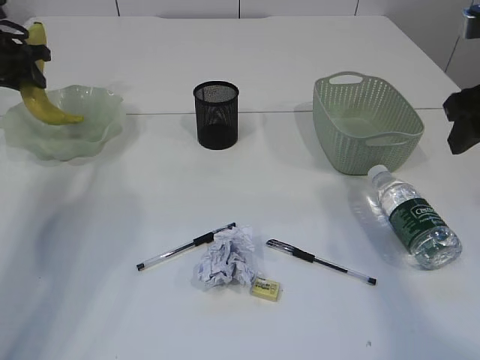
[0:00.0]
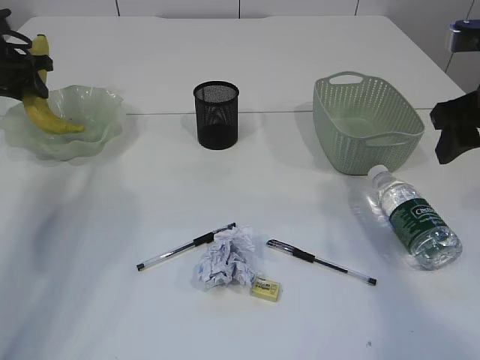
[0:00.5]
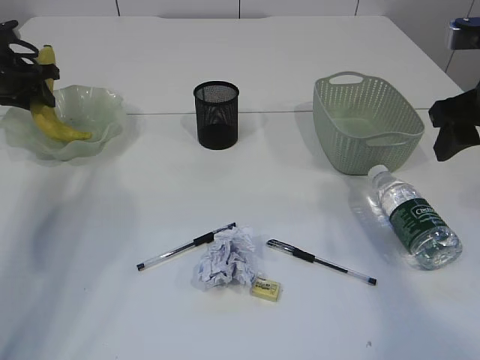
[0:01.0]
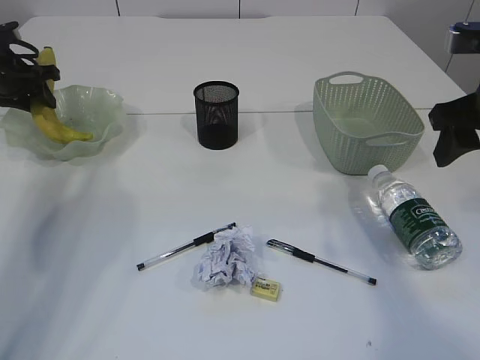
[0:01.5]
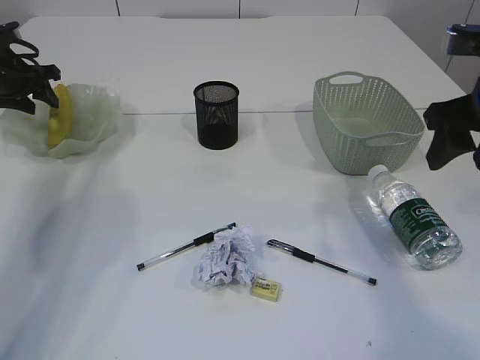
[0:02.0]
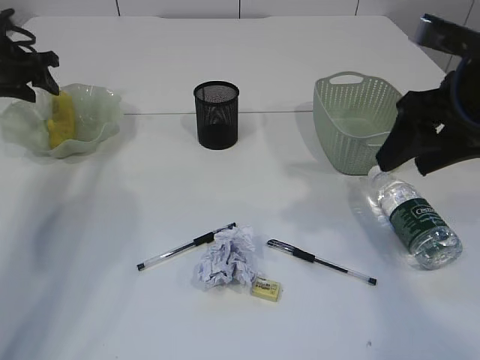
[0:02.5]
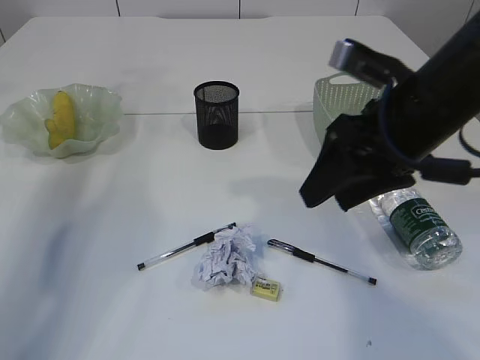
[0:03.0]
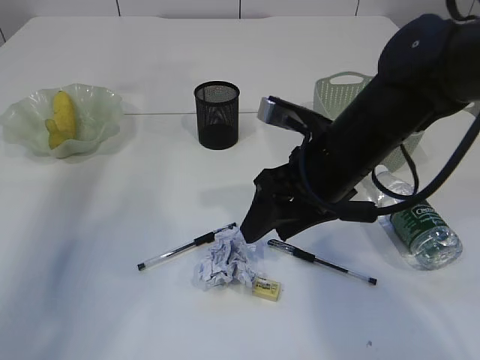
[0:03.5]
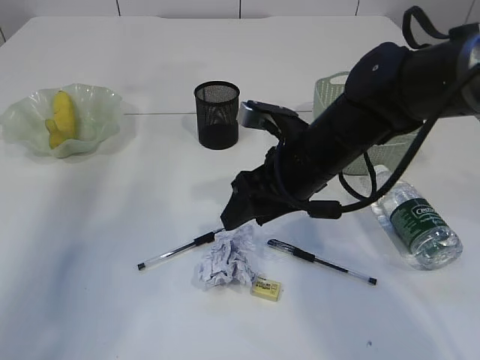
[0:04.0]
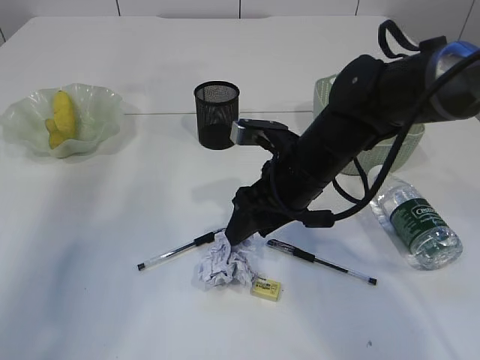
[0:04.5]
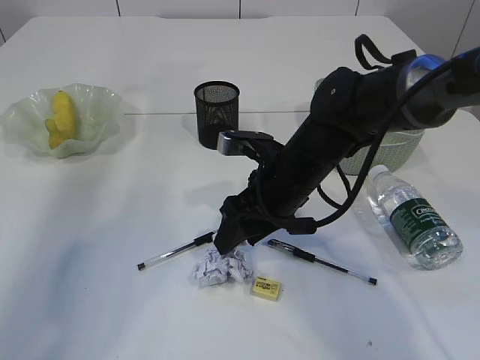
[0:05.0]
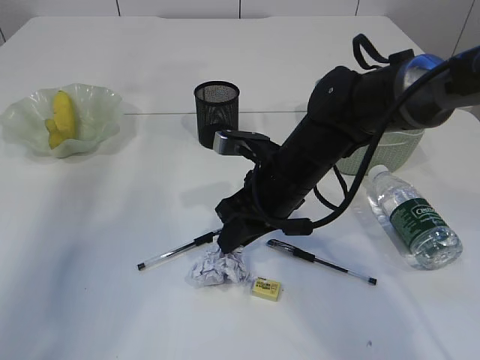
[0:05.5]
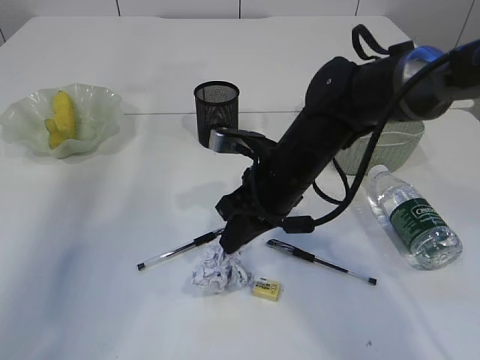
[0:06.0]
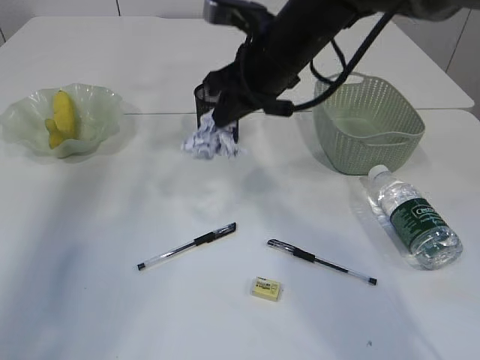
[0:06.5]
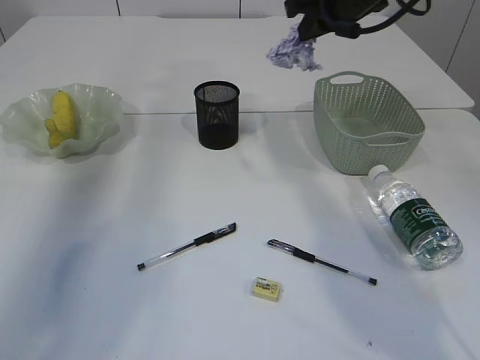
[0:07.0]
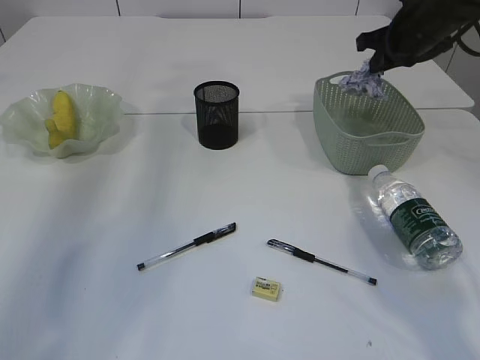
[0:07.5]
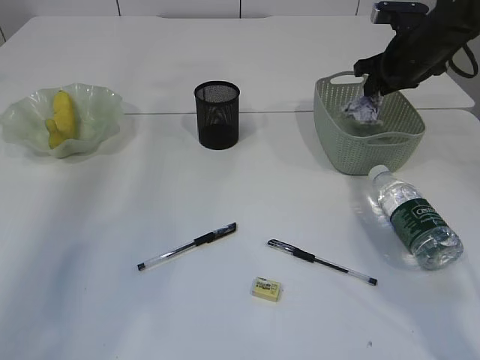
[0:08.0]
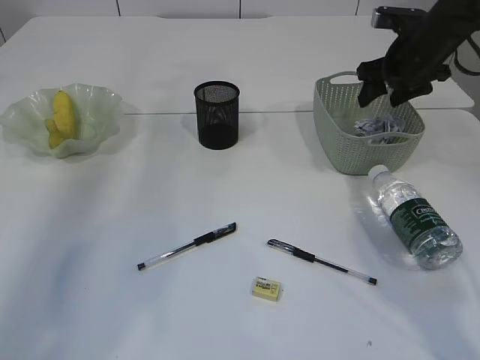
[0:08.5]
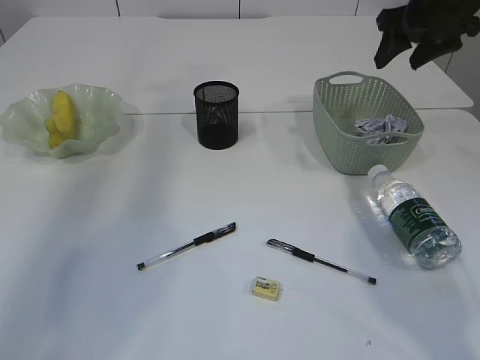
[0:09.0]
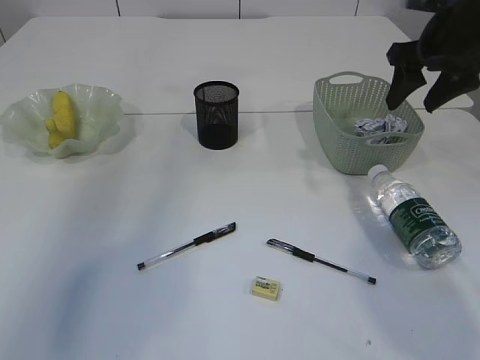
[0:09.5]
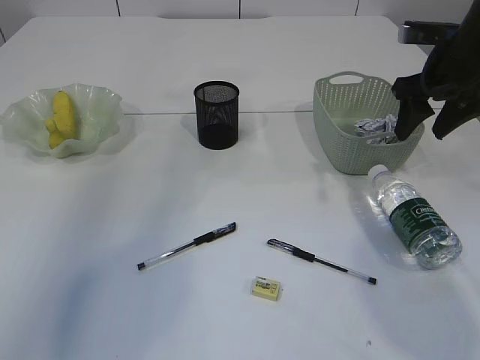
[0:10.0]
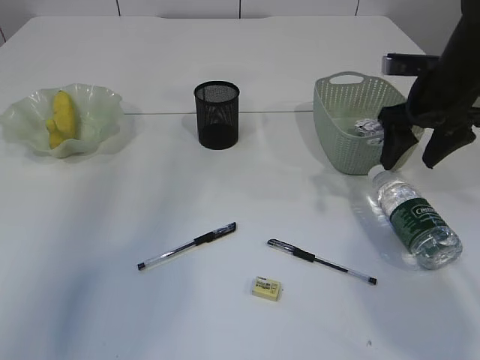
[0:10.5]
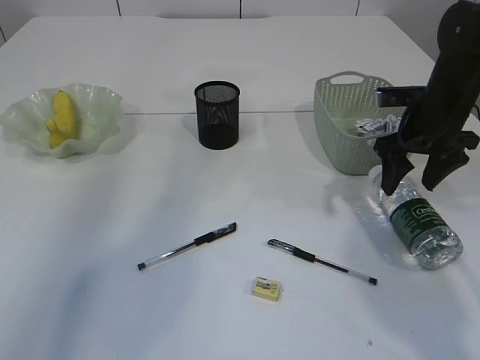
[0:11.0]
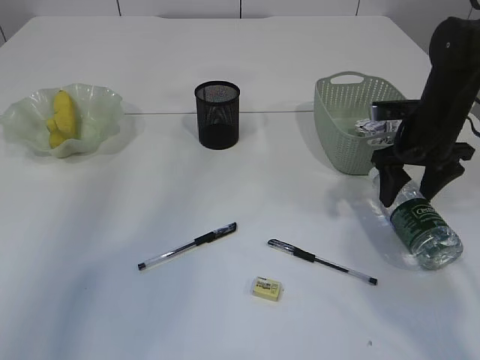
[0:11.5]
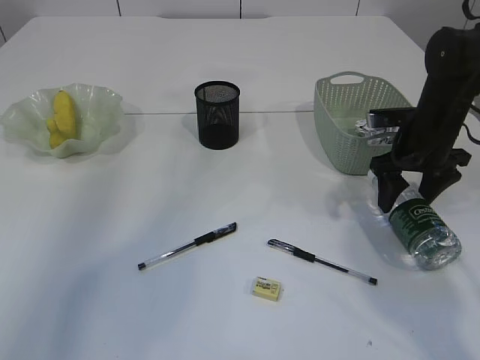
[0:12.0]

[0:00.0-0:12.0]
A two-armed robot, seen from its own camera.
Step, 0.0 to 2.5 s: Place the banana in the plate.
Step, 3.0 to 6.0 s: Pick up the waste paper.
Step, 6.5 to 8.5 s: Place the waste paper in the basket.
0.0 to 2.0 s: There are only small adjustments of the grippers.
2.0 to 4.0 s: The left gripper travels upward by roughly 30 cm, while the right gripper goes some 20 cm to the left and downward.
4.0 to 6.0 s: The right gripper closes its fingers.
6.0 to 8.0 s: The right gripper is displaced to the right and forward by about 30 cm, and opens.
8.0 to 10.0 s: The grippers both shift backward by approximately 10 cm. The right gripper opens its fingers.
10.0 to 12.0 s: The right gripper is displaced downward by roughly 10 cm.

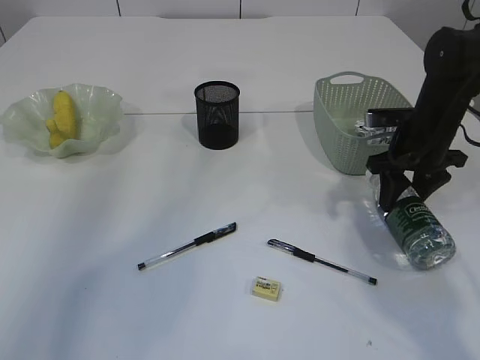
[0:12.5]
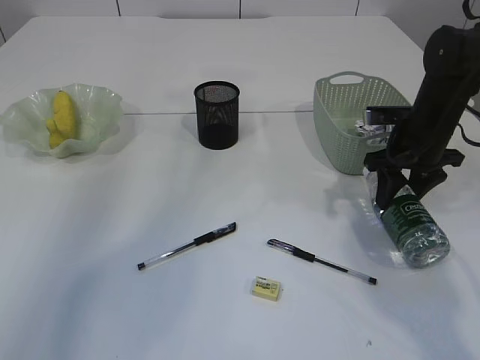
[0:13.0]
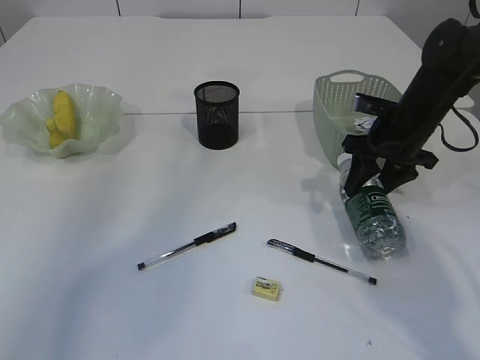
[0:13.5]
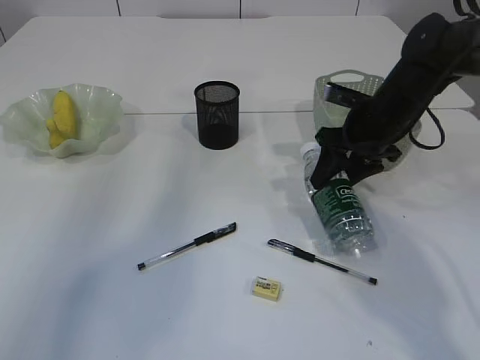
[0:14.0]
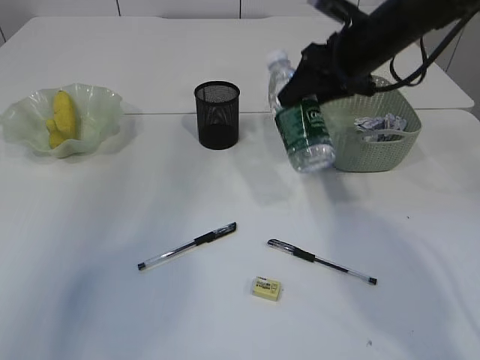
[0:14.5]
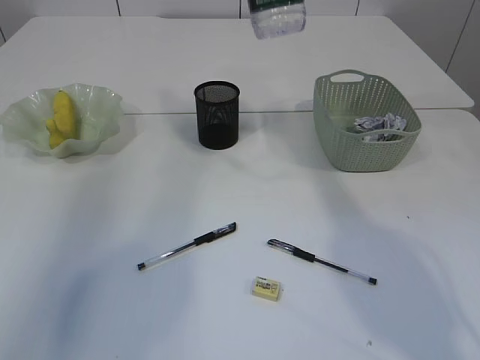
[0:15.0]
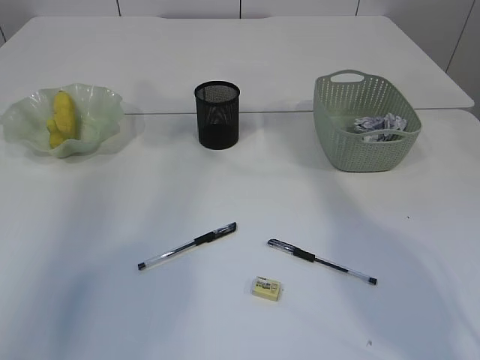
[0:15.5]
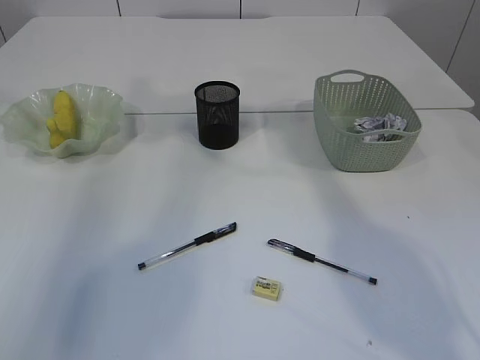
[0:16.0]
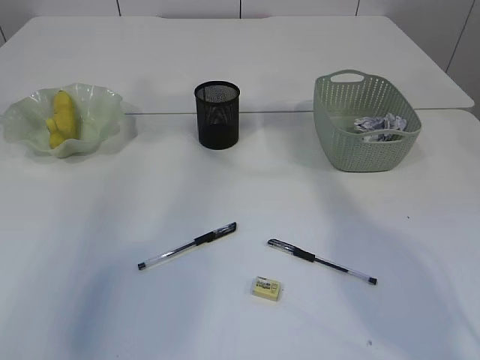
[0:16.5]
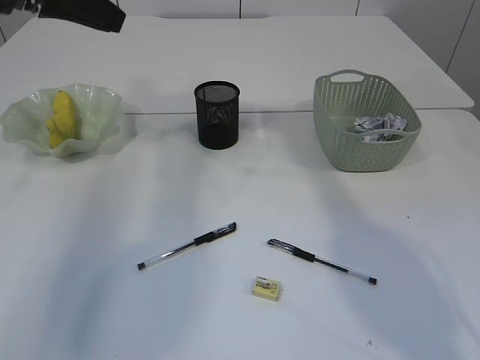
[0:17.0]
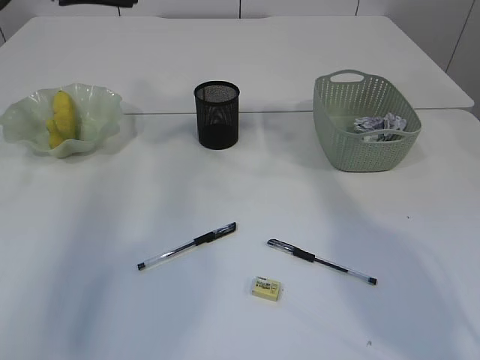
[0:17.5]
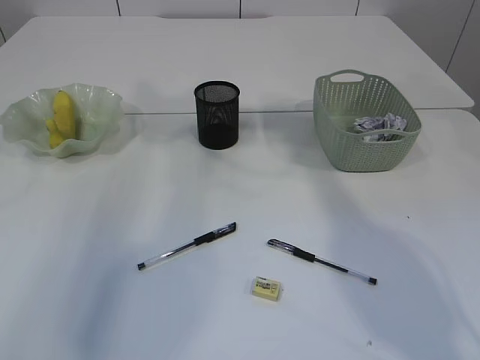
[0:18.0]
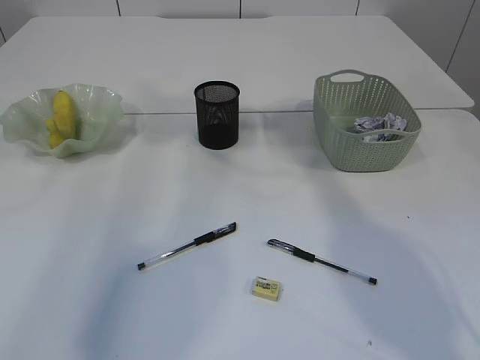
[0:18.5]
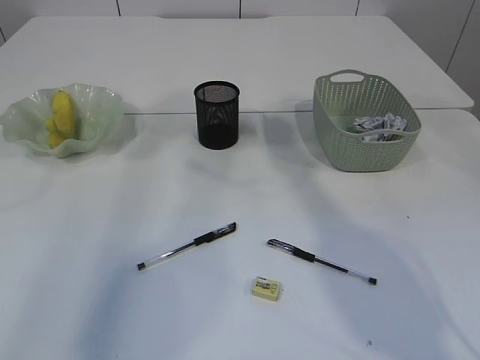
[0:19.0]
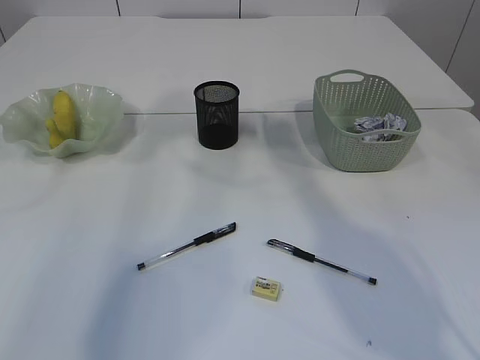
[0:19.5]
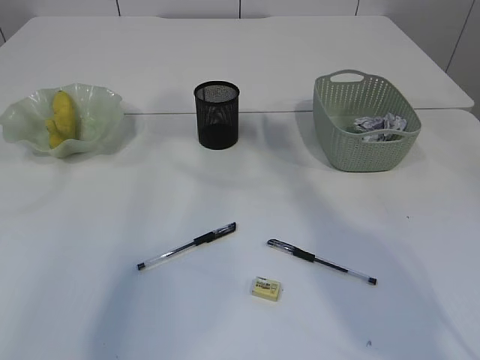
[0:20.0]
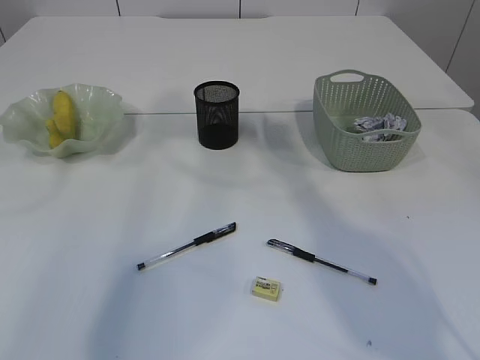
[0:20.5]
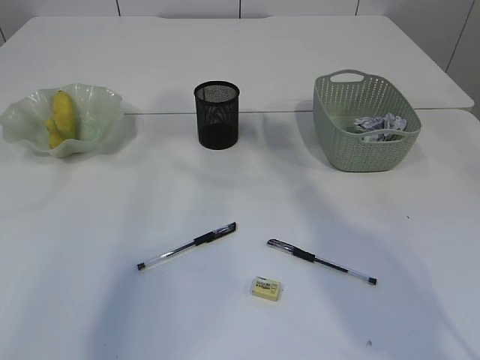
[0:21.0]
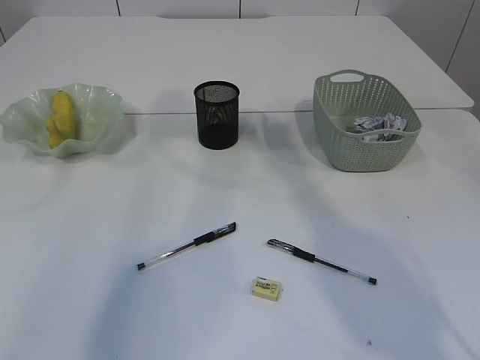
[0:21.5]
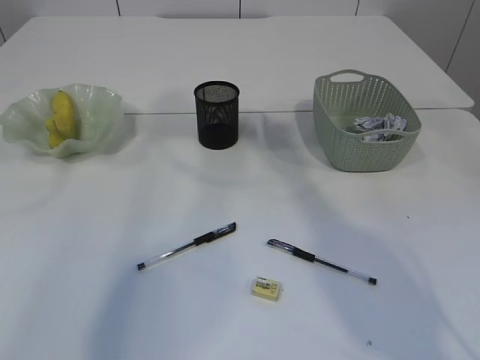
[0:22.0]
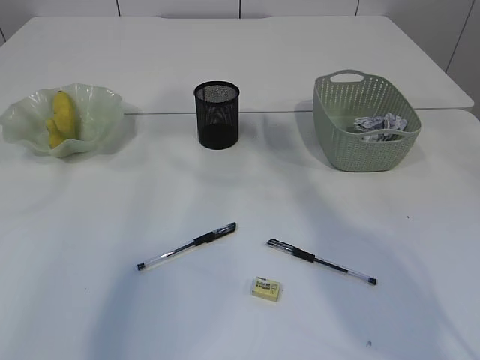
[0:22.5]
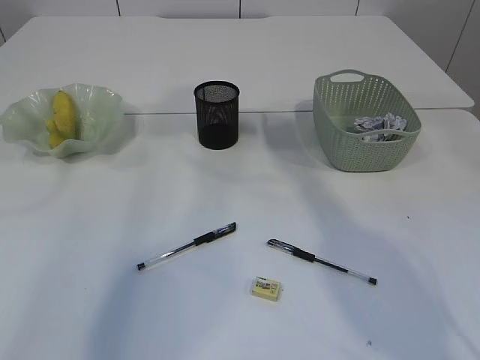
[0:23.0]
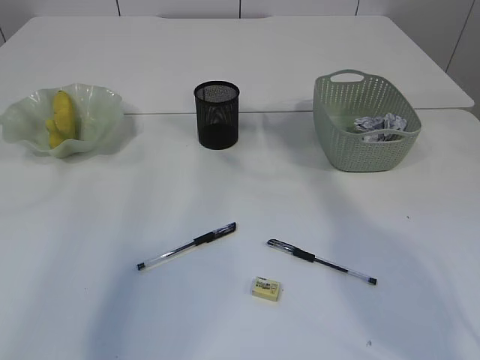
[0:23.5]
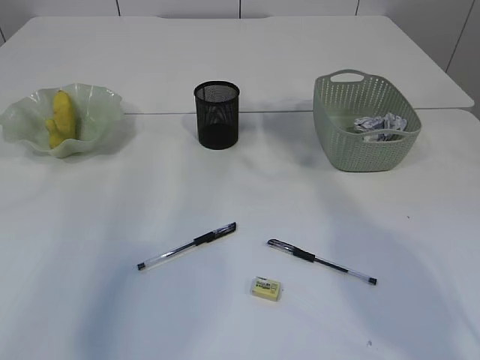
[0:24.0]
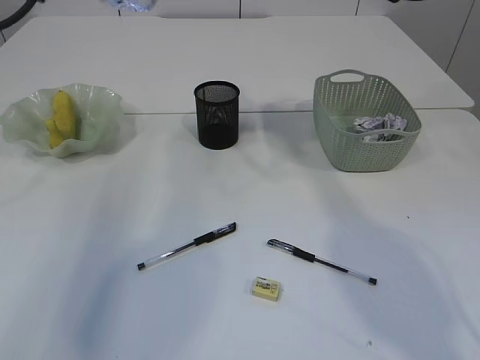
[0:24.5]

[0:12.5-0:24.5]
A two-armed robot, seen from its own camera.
Step, 14.5 to 23.5 s: transfer the bottle to the left arm.
12.5 to 14.5 s: The right gripper goes approximately 15 cm upward and to the left.
14.5 to 16.5 s: The right gripper is displaced upward by roughly 20 cm. The left gripper shifts approximately 10 cm to the right and downward.
18.5 to 20.5 s: The right gripper changes place by roughly 5 cm.
22.5 to 24.5 s: The right gripper shifts some 10 cm to the right and downward, while the left gripper goes approximately 5 cm to the left.

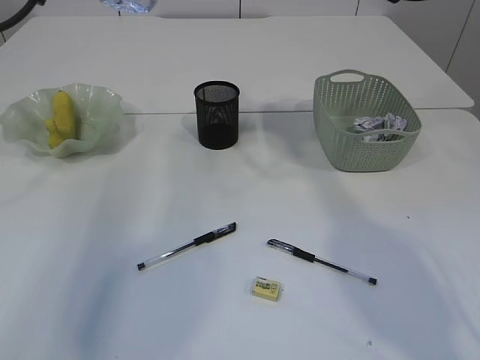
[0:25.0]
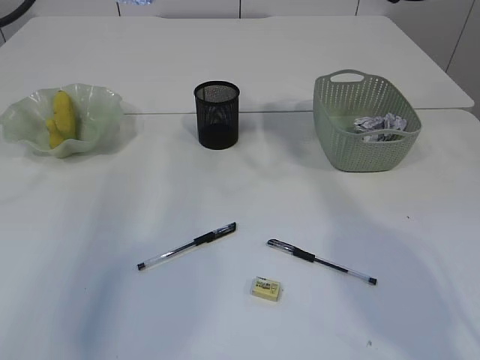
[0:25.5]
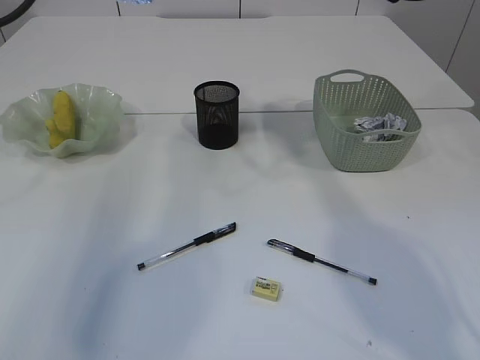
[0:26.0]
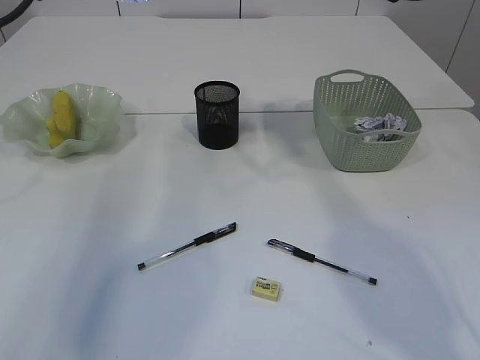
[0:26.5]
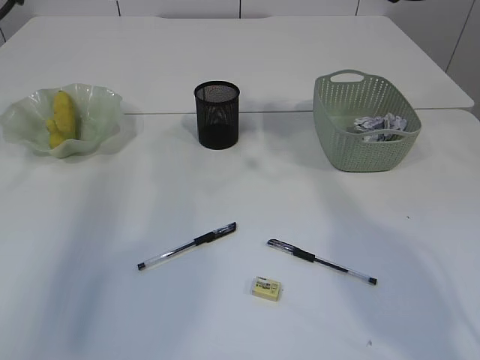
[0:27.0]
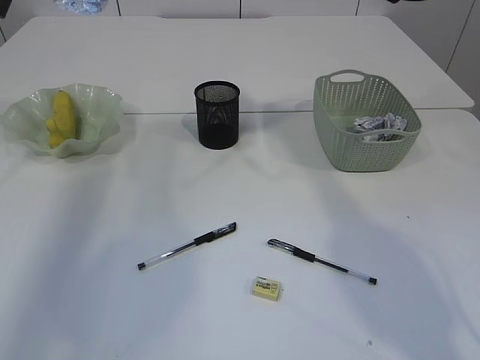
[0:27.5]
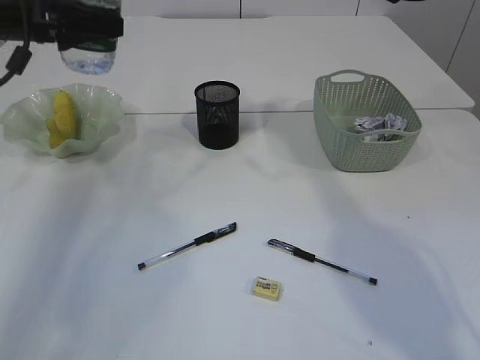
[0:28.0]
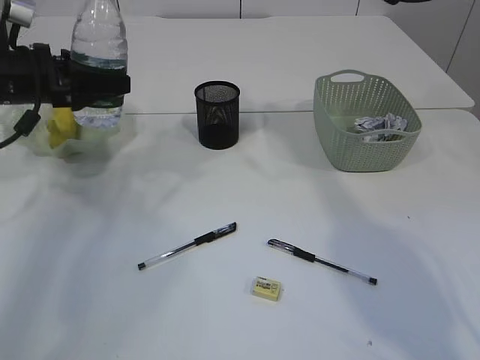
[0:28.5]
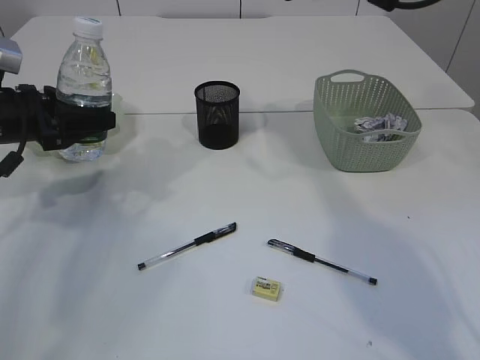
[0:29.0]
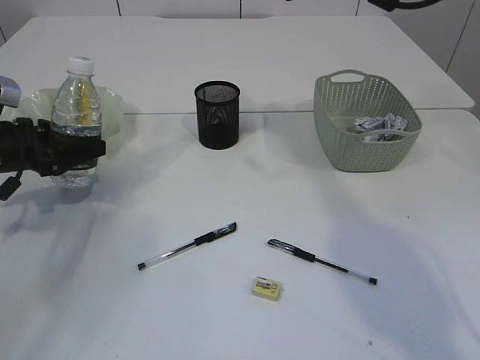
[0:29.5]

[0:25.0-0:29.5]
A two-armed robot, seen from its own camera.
27.0 to 29.5 s: The left gripper shifts approximately 25 cm downward.
